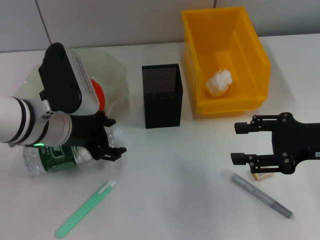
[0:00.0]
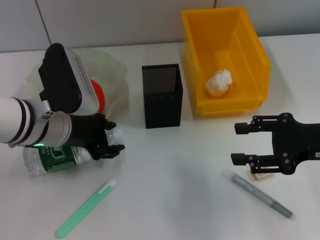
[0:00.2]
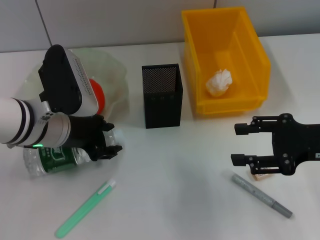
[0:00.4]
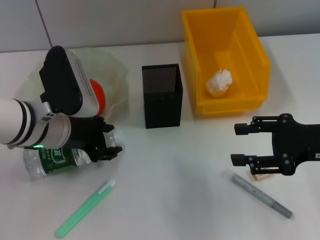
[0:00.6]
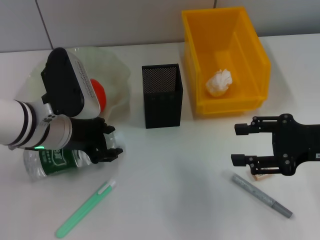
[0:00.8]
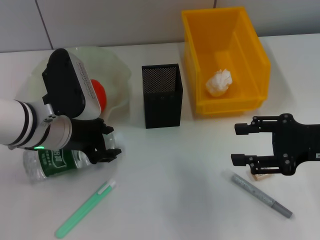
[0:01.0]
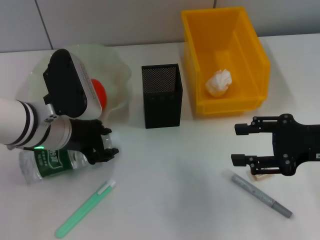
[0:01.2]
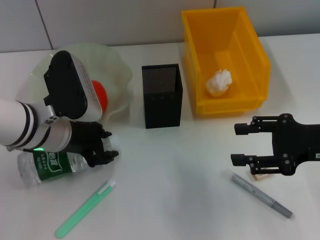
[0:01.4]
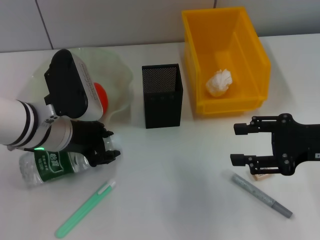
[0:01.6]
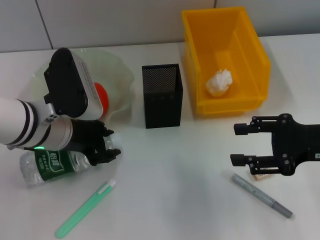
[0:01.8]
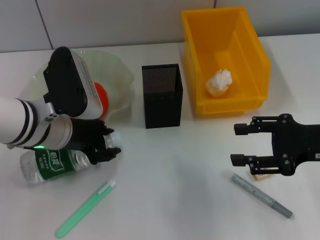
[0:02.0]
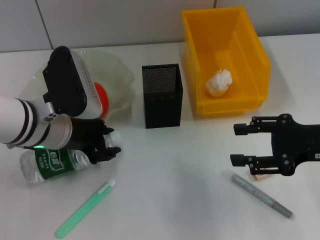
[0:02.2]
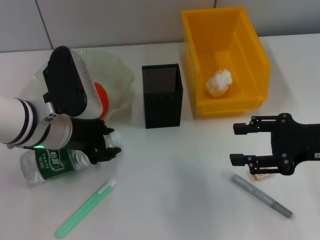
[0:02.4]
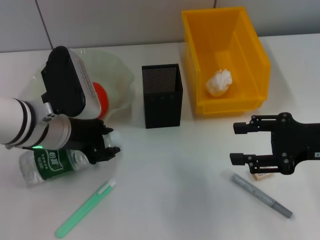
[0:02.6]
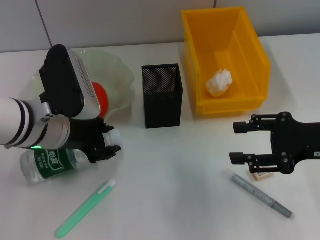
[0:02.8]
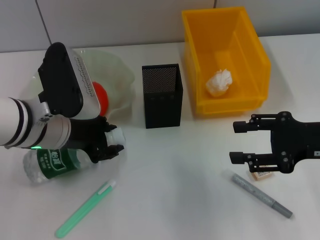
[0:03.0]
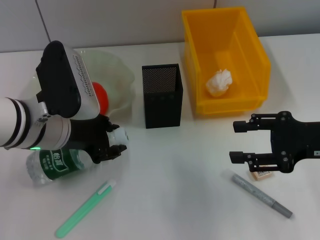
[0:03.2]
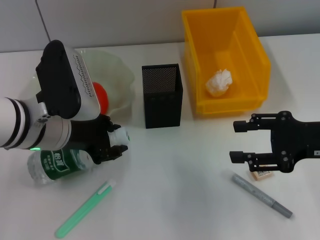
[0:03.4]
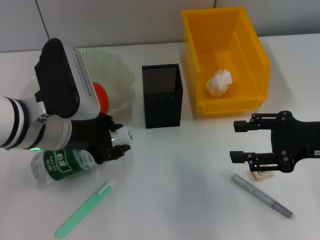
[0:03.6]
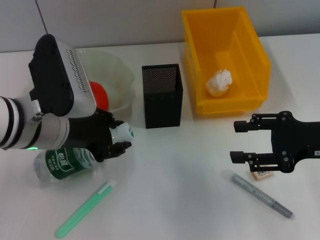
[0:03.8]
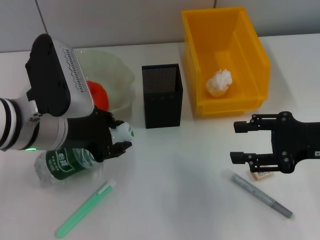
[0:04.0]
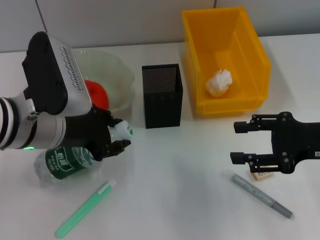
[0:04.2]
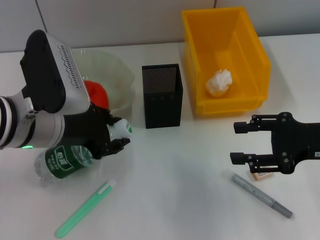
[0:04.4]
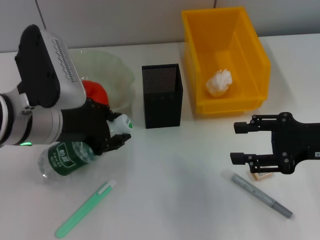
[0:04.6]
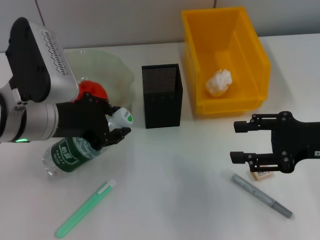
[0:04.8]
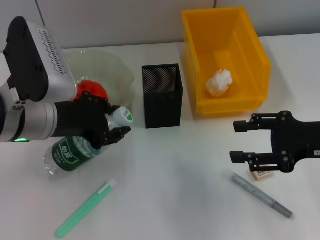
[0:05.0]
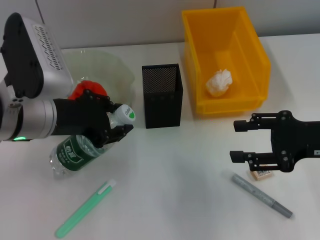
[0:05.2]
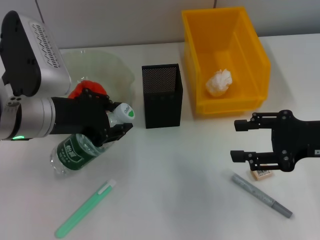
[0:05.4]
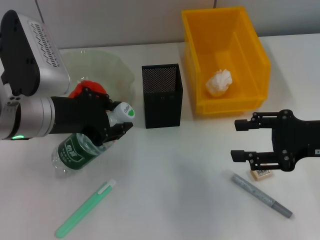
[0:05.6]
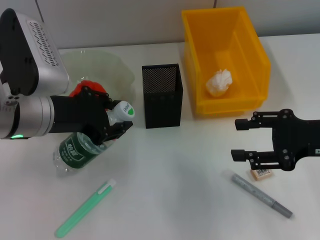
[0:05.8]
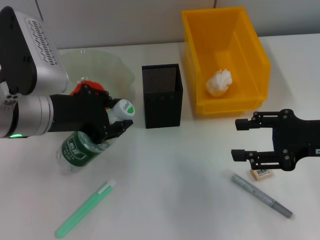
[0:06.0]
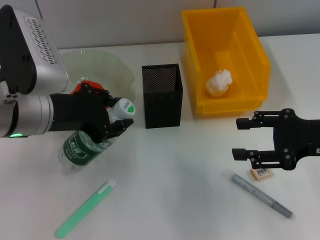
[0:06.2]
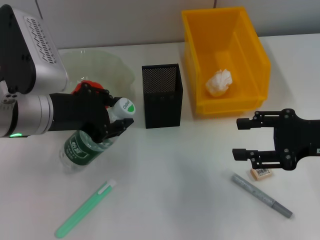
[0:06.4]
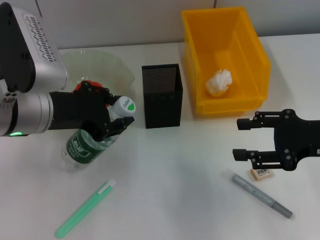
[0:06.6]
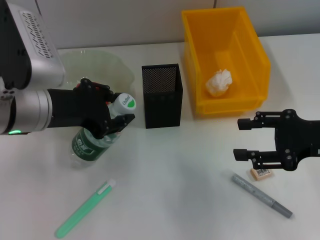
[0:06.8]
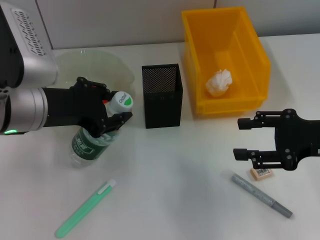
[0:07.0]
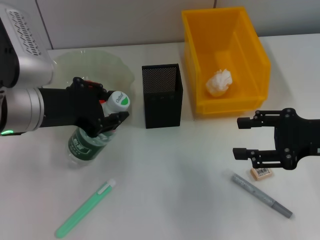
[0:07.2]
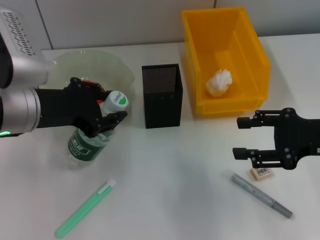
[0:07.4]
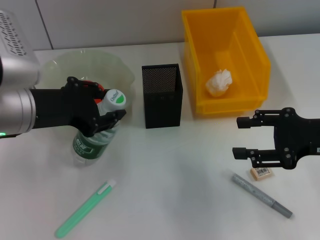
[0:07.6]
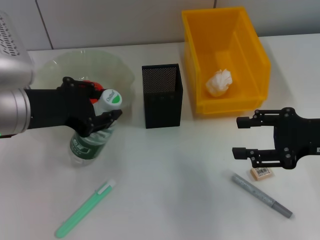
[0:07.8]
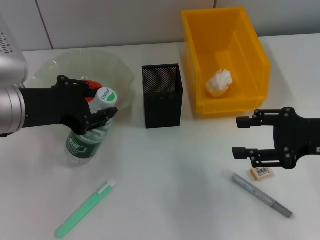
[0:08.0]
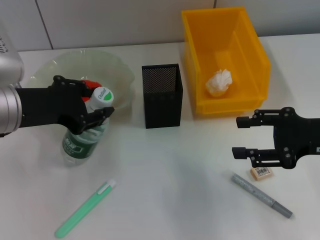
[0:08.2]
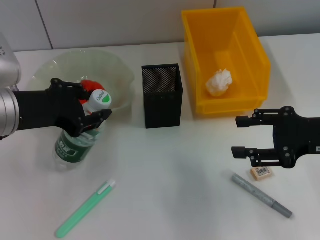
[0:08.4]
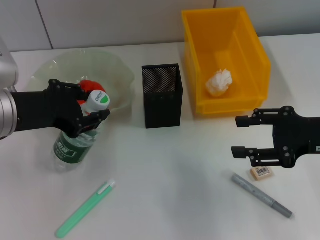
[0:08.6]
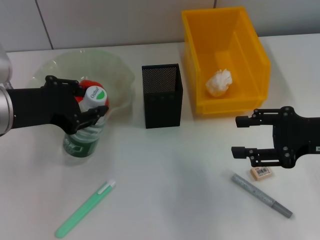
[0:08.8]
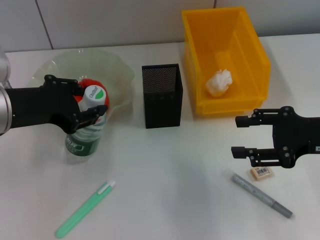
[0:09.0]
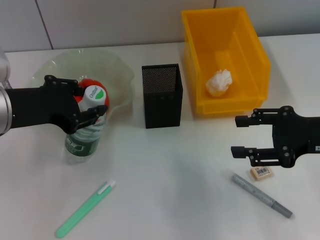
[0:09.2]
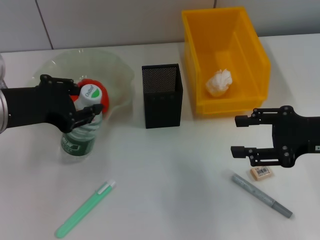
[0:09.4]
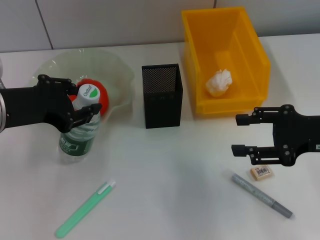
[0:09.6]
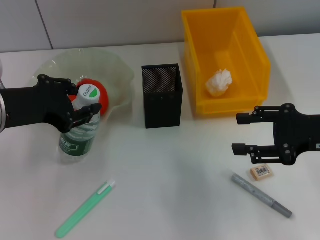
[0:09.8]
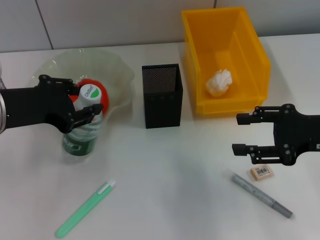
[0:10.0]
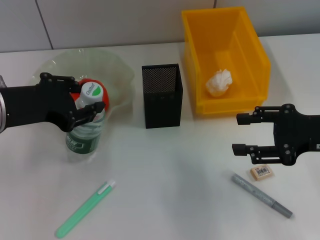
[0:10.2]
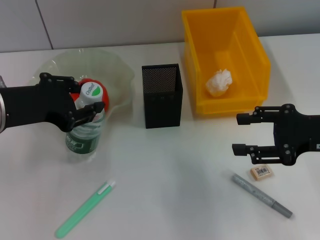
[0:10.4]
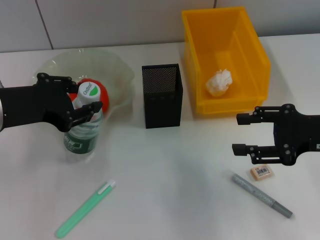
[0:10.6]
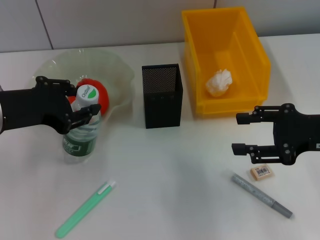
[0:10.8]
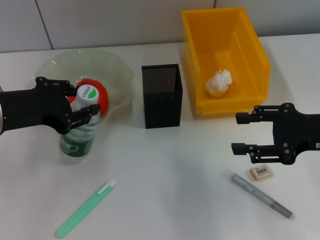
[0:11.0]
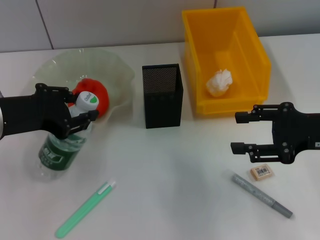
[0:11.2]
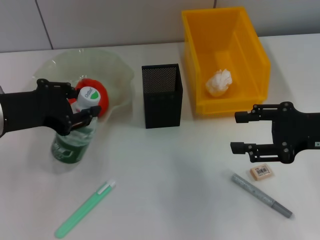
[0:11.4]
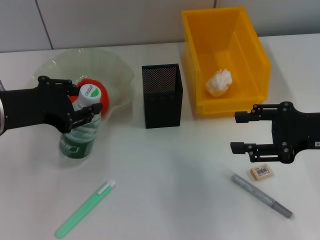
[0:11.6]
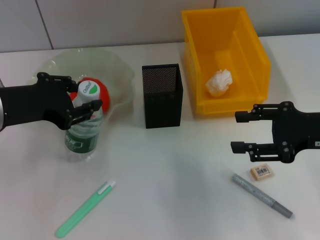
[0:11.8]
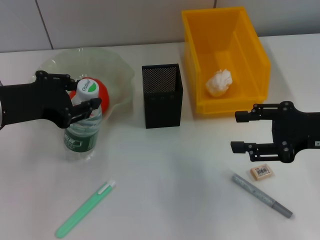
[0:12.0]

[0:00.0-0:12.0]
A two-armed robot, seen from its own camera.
0:00.0 to 0:01.6: The left gripper closes up.
0:01.6 to 0:04.4: The grippers stay close to where they were, moving slightly.
0:04.4 to 0:09.0: The grippers move only a little.
0:09.0 to 0:10.4: The two grippers keep their place.
0:10.4 to 0:12.0: The grippers stay close to where they were, moving slightly.

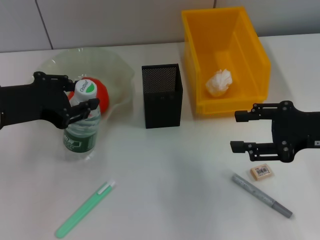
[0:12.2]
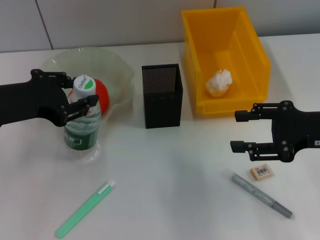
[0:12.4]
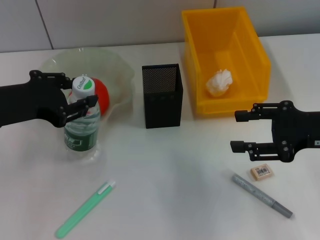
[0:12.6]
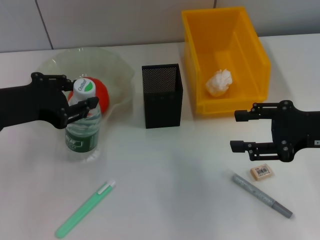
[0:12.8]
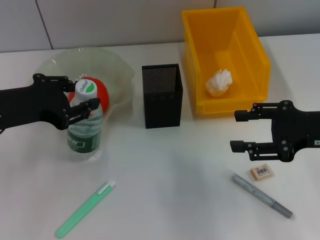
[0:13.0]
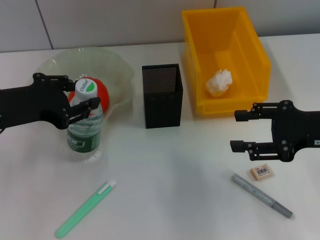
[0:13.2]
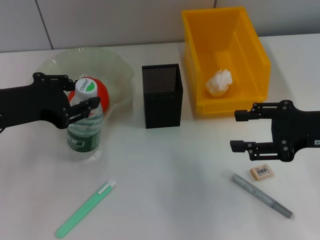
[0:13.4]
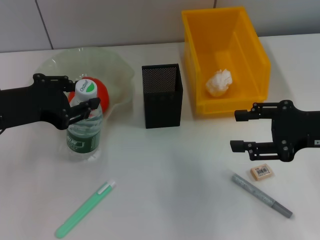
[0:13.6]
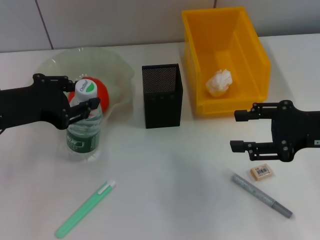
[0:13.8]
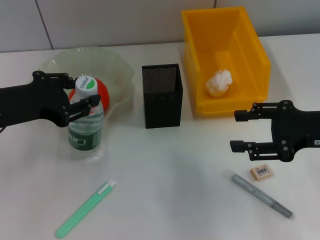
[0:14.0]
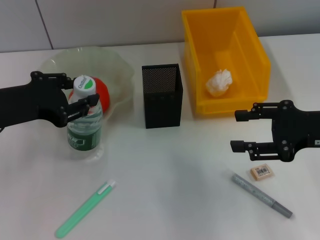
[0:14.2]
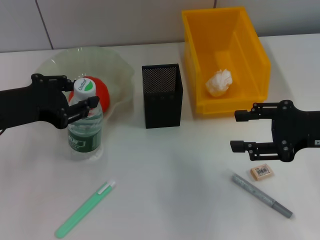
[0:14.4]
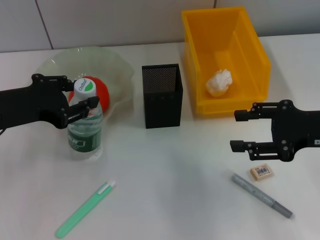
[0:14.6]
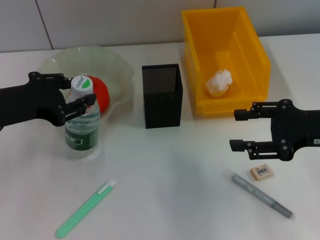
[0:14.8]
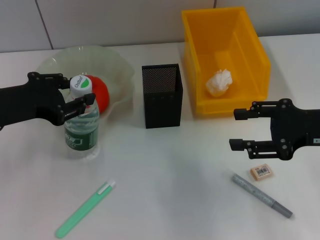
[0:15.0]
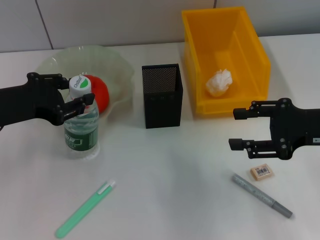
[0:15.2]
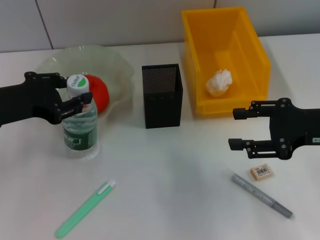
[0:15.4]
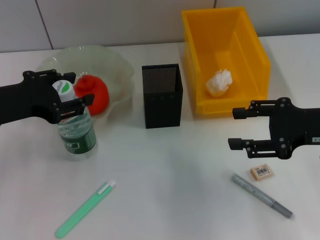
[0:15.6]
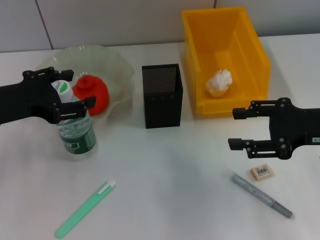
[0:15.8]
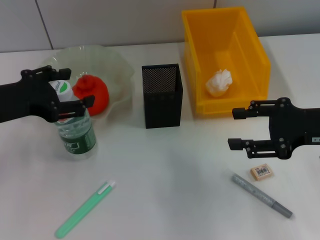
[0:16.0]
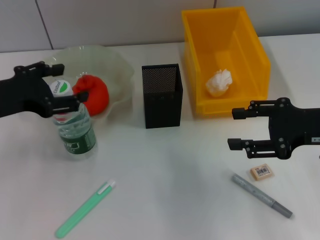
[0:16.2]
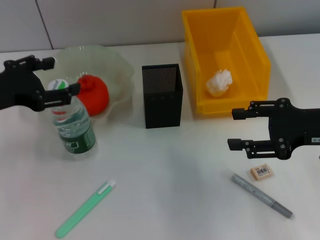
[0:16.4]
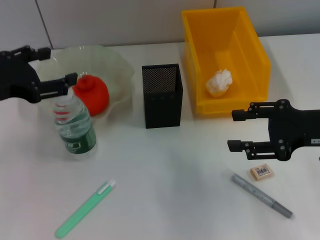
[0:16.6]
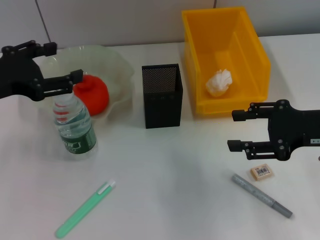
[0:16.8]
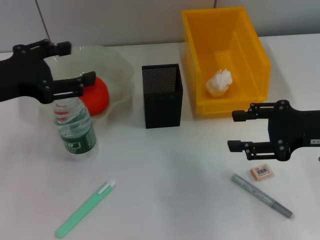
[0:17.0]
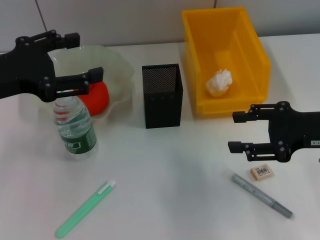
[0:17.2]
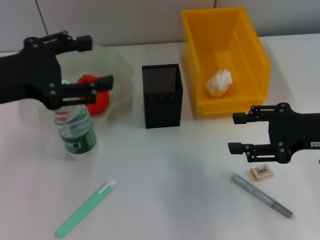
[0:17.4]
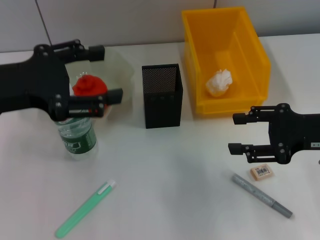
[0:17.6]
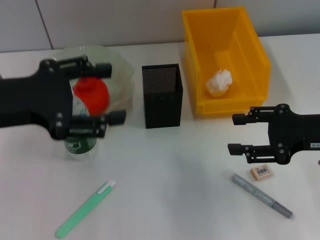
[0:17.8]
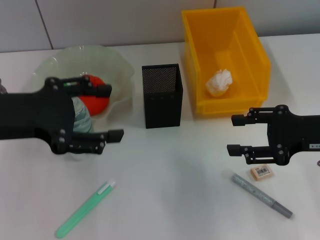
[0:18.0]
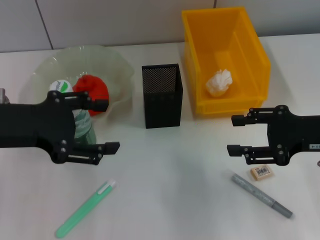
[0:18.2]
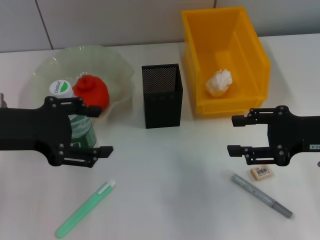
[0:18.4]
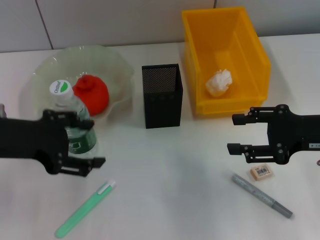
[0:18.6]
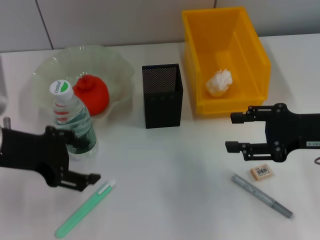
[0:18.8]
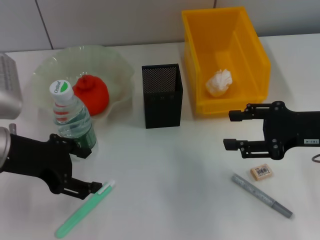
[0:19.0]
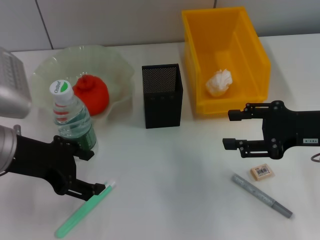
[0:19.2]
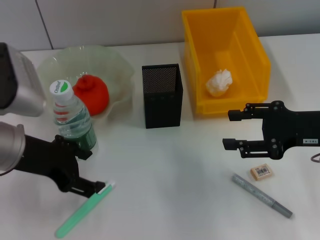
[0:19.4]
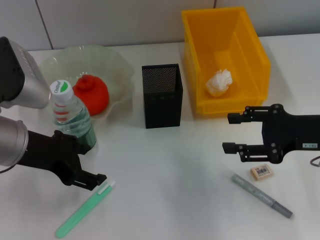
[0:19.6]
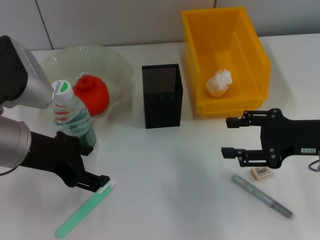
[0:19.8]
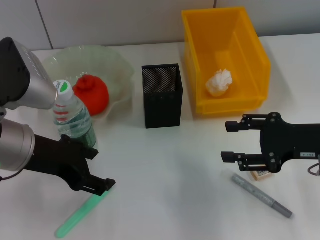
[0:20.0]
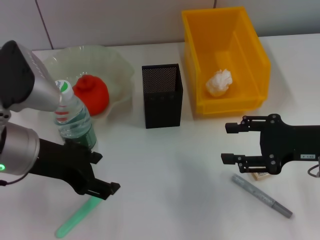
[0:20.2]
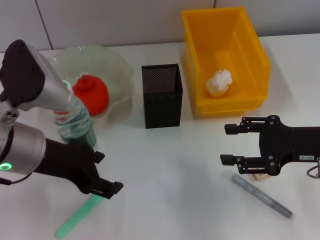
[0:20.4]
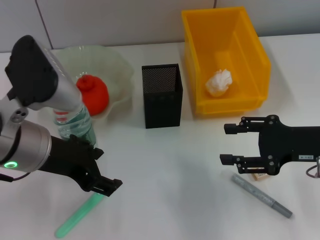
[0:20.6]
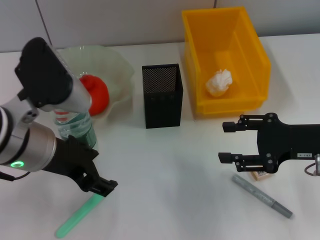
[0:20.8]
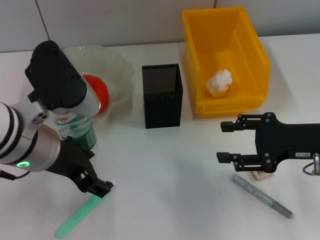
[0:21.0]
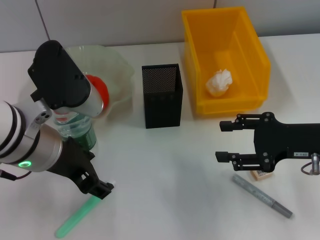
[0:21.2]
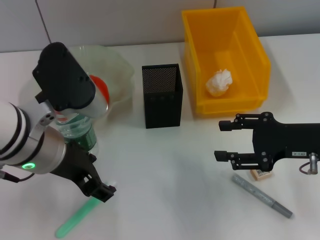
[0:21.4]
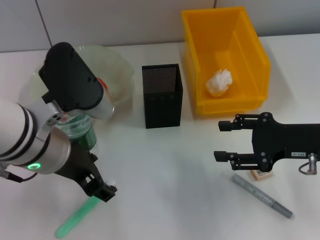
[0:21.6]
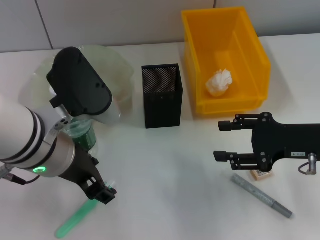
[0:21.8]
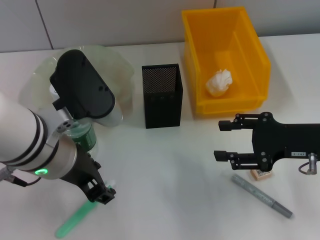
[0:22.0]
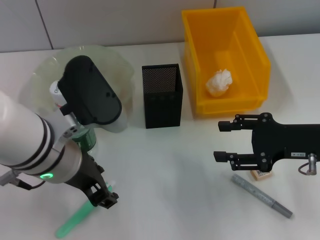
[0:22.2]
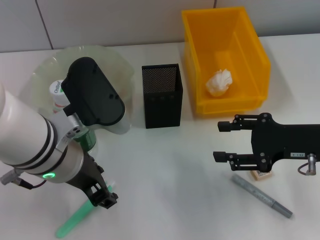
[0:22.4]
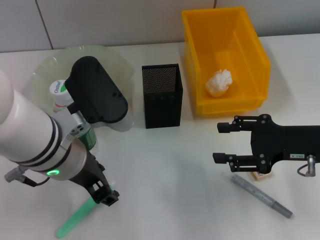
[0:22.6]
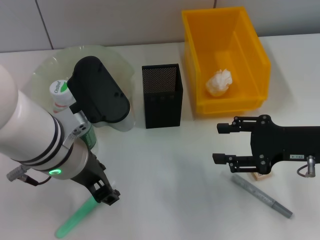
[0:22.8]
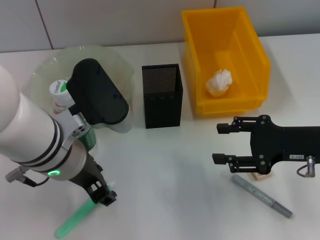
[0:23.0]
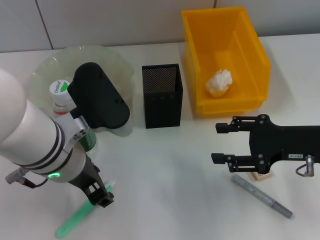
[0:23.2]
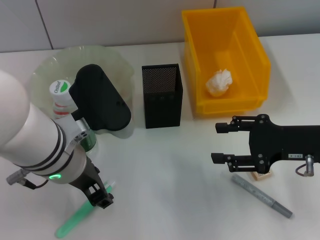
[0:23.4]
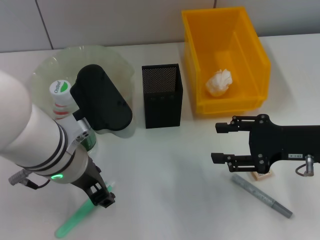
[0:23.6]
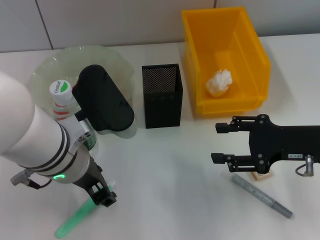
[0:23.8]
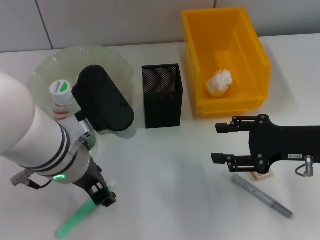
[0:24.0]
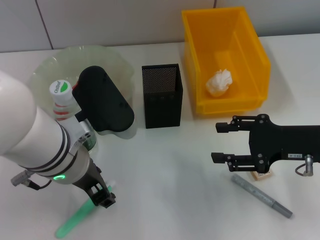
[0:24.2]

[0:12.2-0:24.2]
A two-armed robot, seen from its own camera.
Step, 0:12.2 to 0:15.6: Place the water bottle on the table with the left hand.
0:12.2 to 0:13.8: Both grippers stay put.
0:13.8 to 0:15.2: Both grippers stay put.
0:15.2 to 0:16.6: The left gripper opens.
0:18.2 to 0:19.8: The left gripper moves approximately 5 cm.
0:19.8 to 0:21.2: The left gripper moves roughly 5 cm.
0:21.2 to 0:24.2: The grippers make only small movements.
